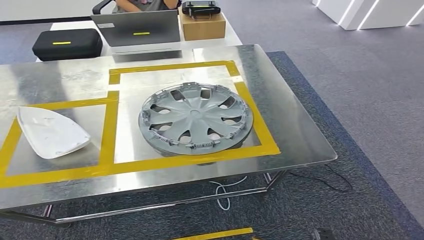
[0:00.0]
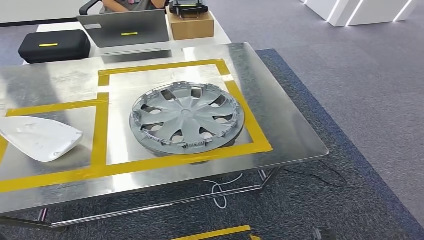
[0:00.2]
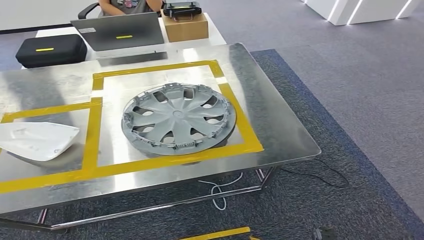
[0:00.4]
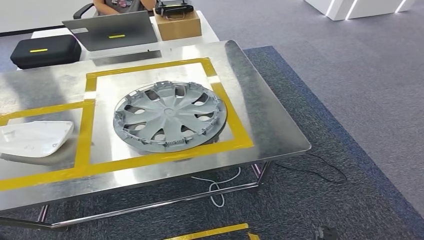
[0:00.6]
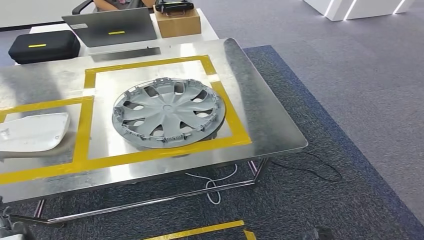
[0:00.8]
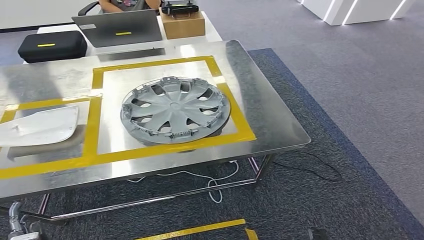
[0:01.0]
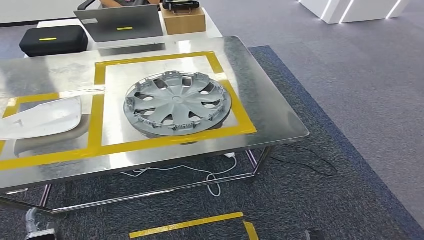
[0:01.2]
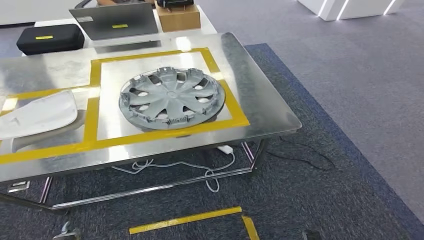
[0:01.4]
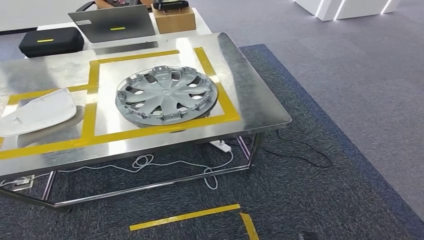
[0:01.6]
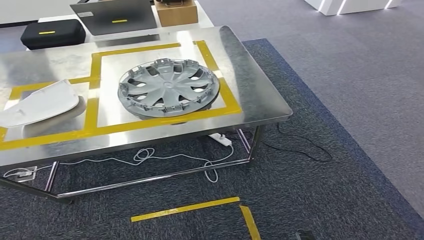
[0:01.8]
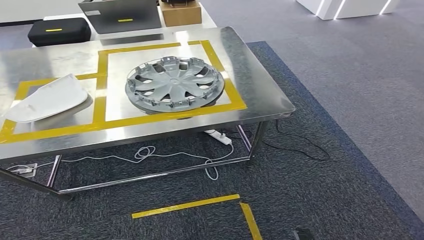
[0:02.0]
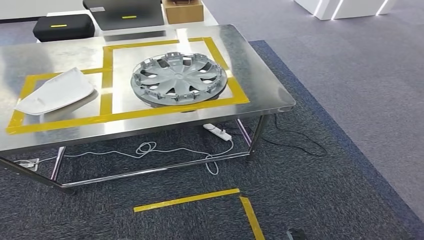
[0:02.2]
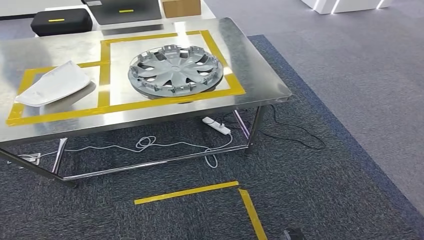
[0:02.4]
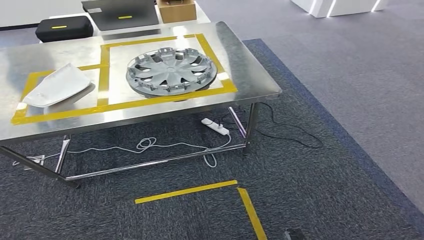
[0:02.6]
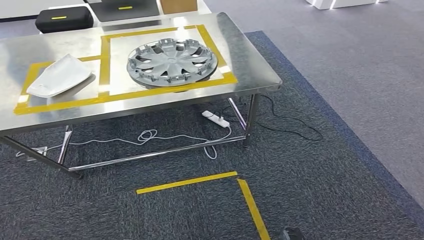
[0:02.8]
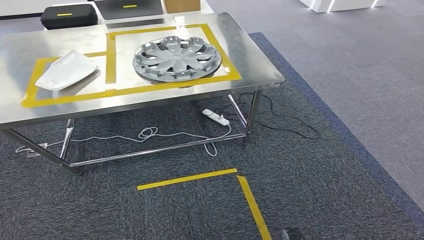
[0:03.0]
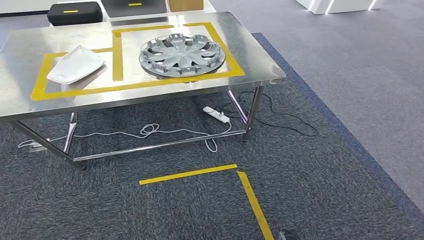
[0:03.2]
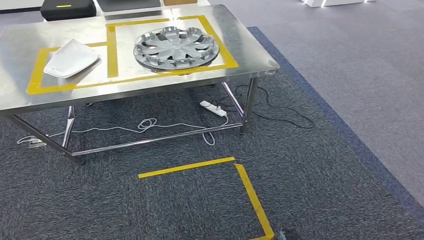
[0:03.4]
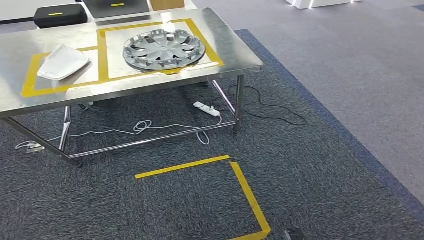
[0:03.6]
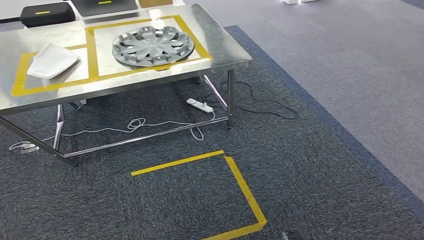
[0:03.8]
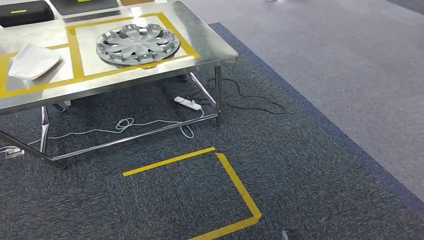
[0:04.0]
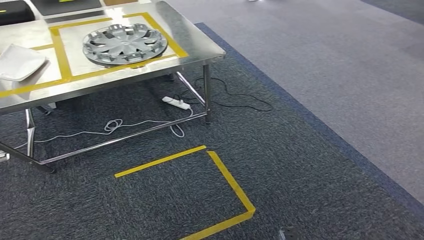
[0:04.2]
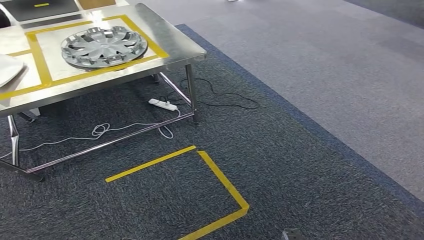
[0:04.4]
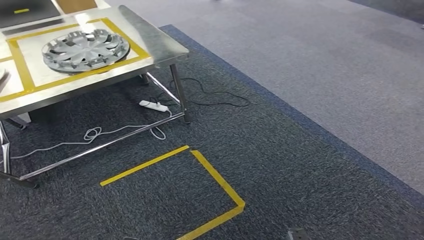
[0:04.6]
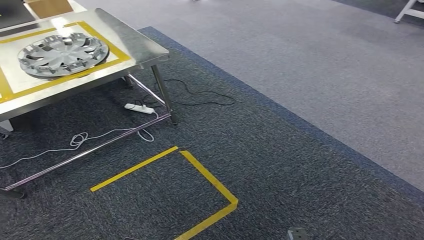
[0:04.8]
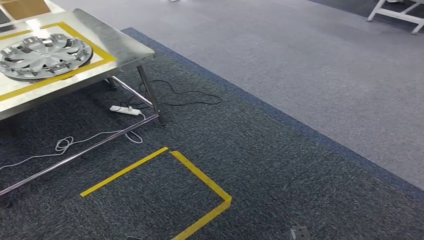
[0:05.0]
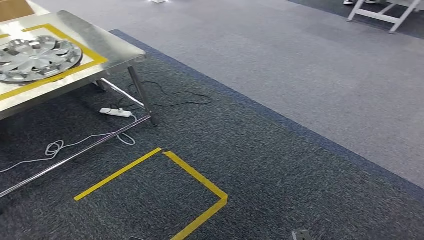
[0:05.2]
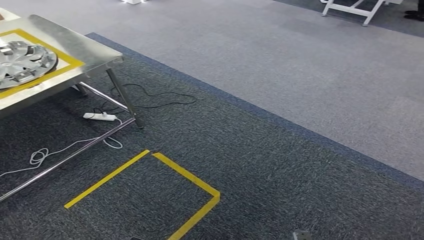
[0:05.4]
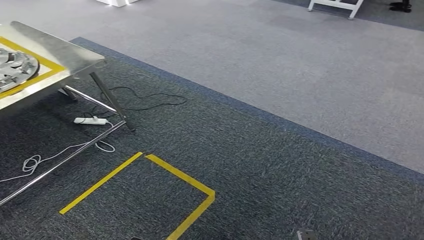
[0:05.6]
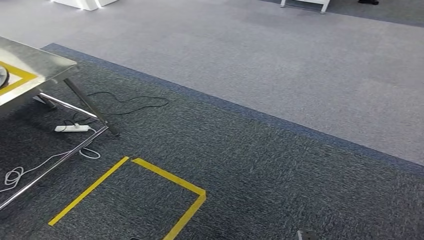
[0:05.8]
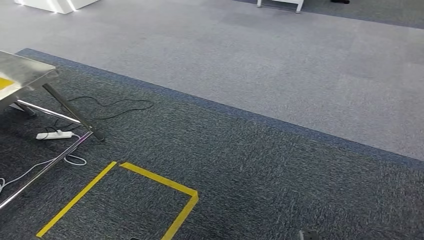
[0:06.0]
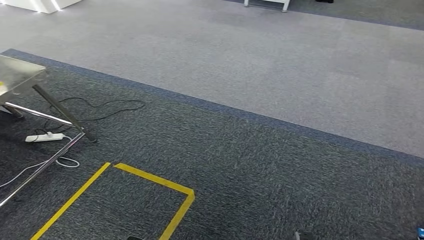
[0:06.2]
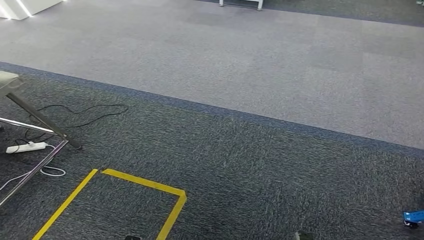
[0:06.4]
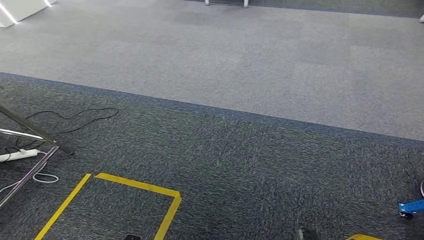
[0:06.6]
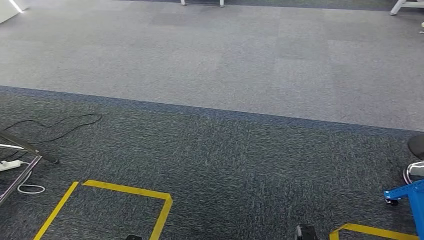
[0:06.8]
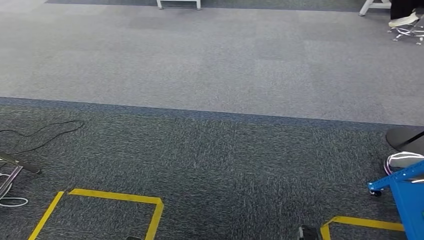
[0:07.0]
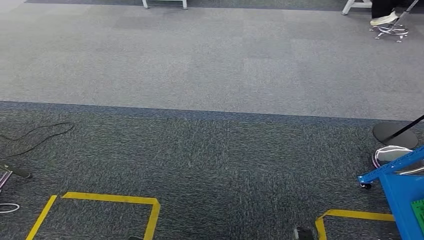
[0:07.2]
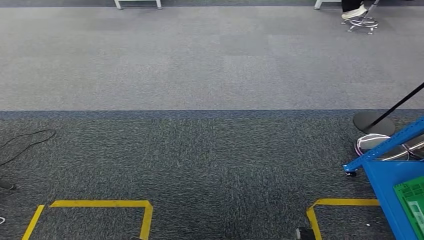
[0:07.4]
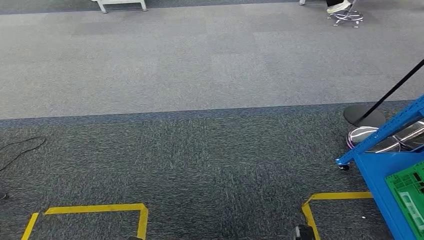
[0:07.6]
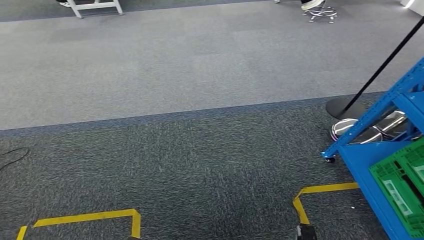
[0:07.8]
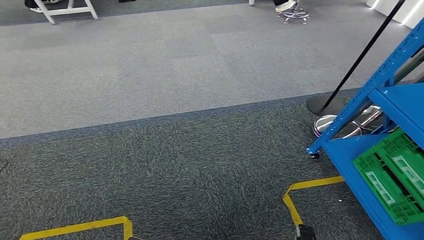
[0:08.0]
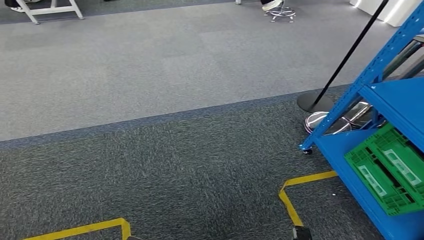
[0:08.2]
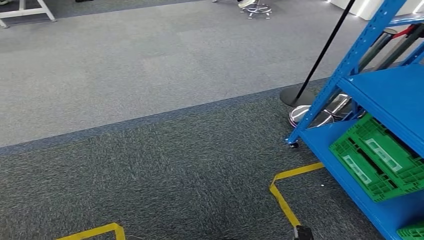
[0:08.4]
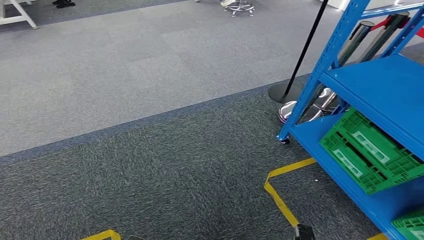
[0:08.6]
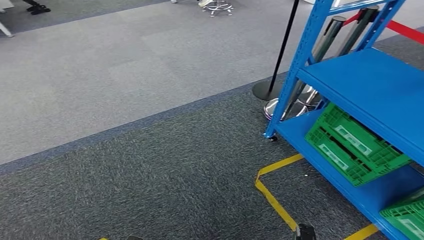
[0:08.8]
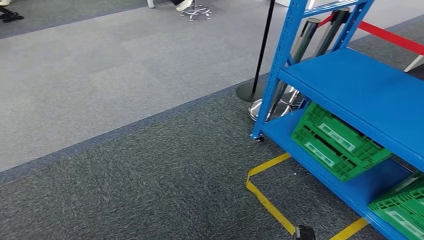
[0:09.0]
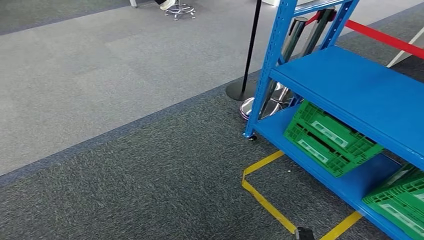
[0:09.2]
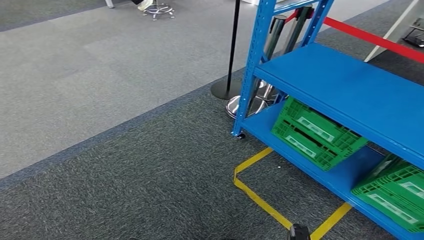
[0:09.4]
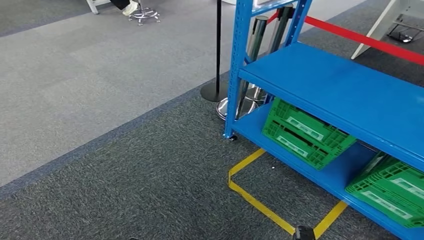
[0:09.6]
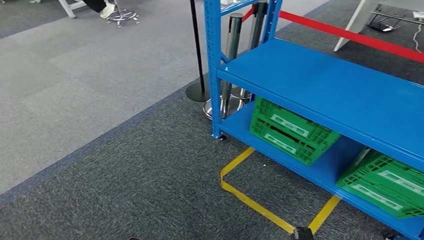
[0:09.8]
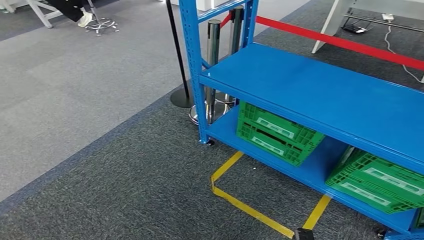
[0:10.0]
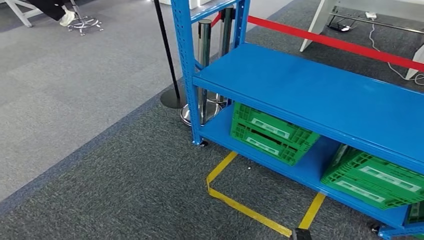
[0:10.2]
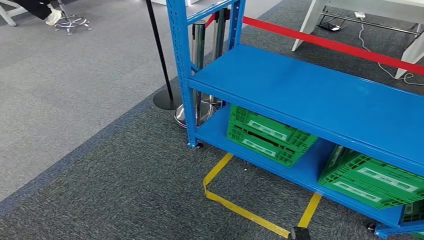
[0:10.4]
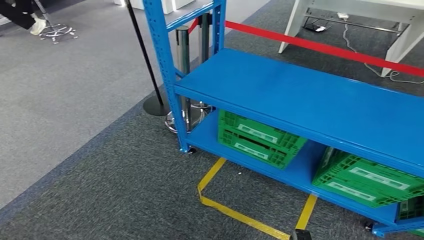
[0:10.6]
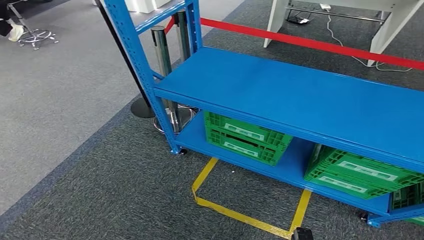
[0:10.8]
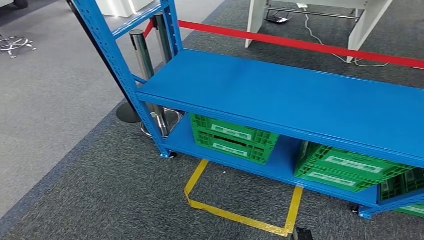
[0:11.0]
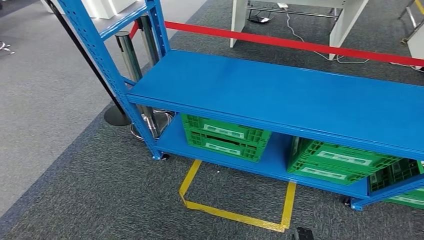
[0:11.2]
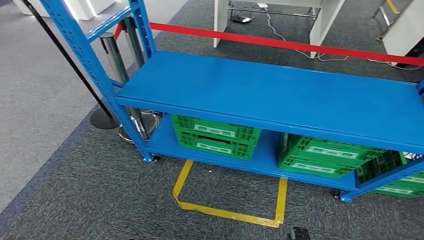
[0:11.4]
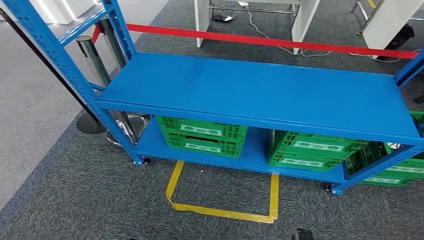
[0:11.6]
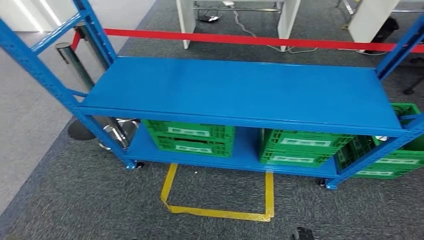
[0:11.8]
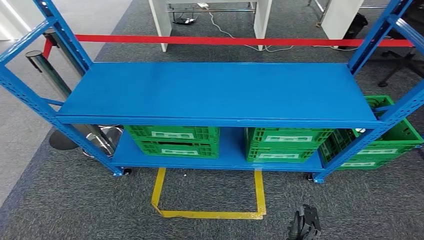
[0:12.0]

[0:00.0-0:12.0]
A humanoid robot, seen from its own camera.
Step, 0:00.0 to 0:02.2: Insert the small component into the corresponding slot on the workbench.

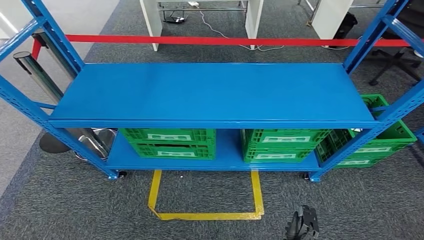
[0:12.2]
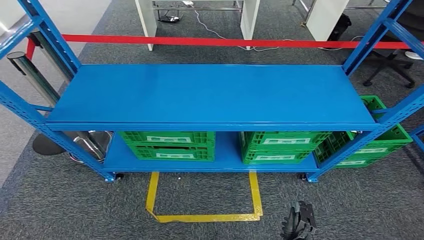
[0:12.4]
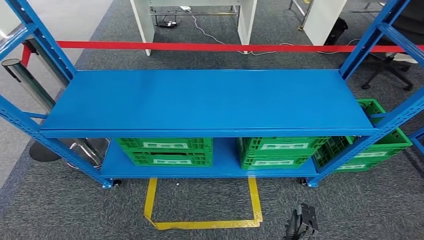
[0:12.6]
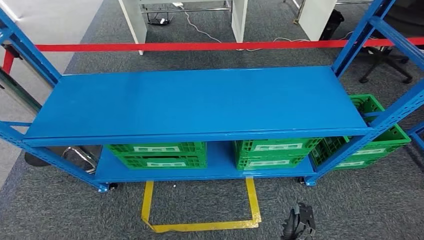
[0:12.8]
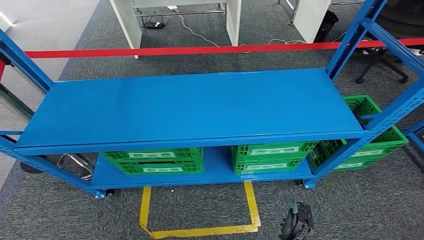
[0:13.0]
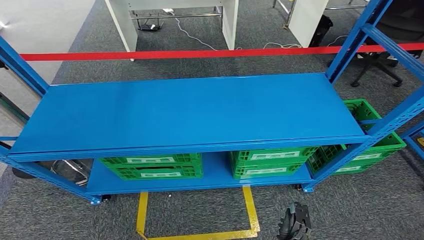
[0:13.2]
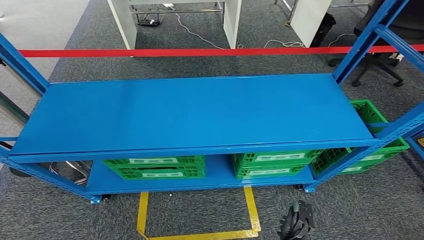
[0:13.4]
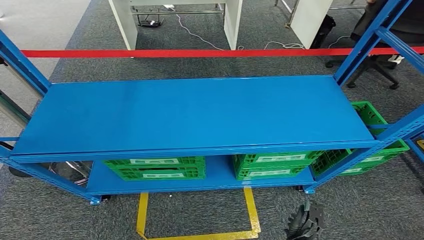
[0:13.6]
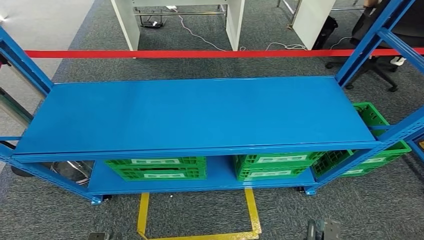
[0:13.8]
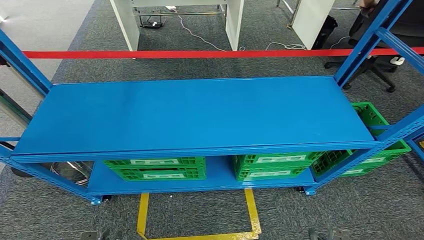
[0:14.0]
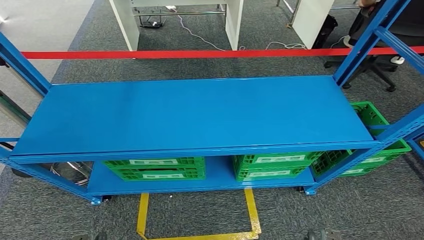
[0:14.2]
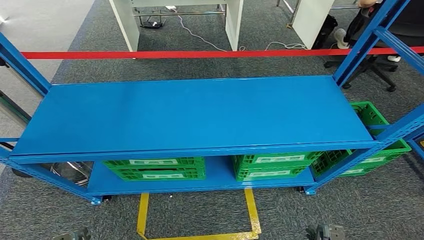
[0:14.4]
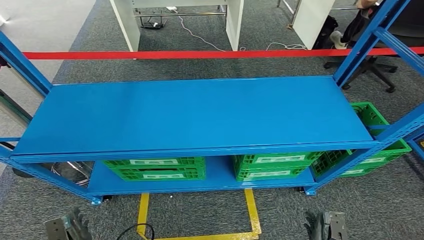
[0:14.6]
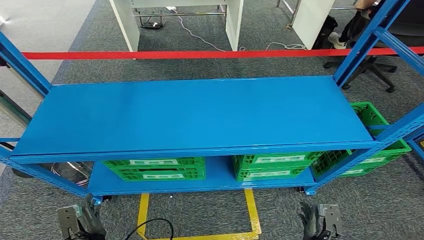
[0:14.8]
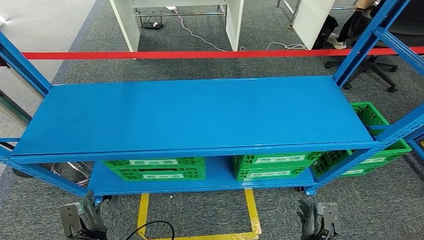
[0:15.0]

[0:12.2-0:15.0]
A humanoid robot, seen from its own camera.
Step, 0:12.2 to 0:15.0: Move to the initial position at the workbench.
0:13.6 to 0:15.0: The right hand goes about 5 cm to the right, and travels backward and back again, roughly 10 cm each way. Meanwhile the left hand travels forward by some 15 cm.
